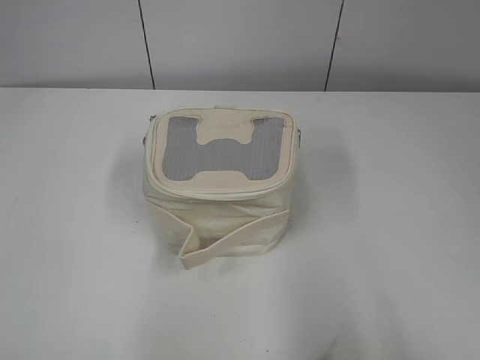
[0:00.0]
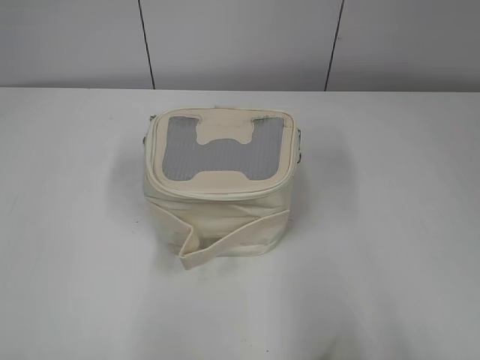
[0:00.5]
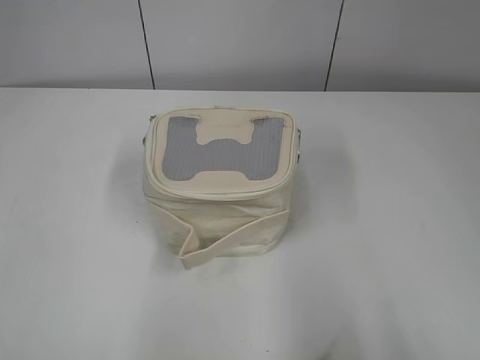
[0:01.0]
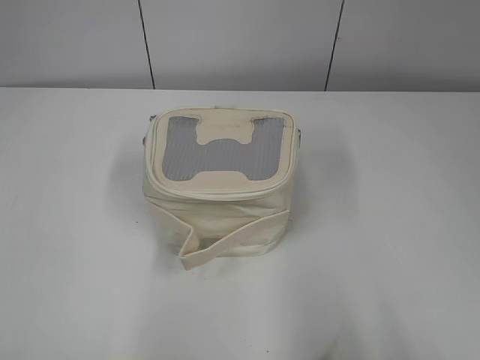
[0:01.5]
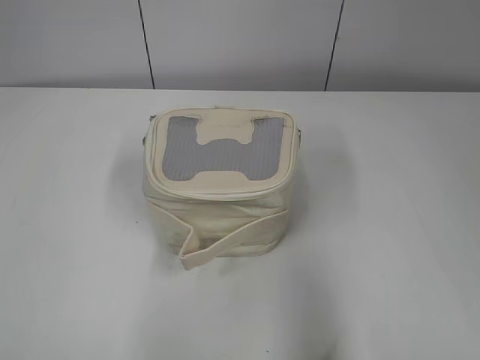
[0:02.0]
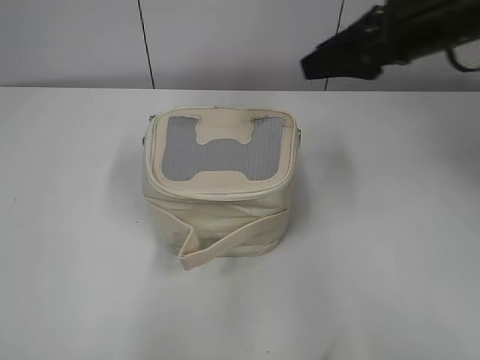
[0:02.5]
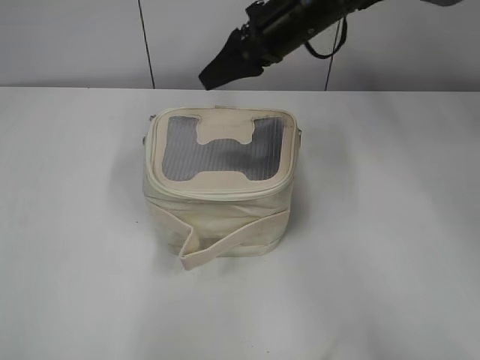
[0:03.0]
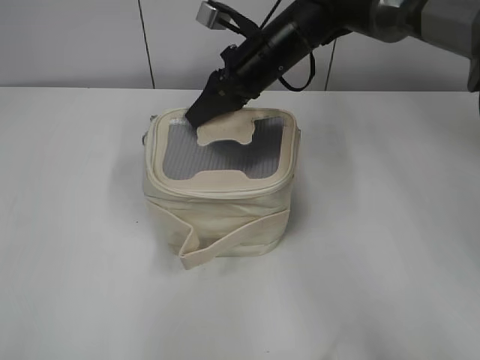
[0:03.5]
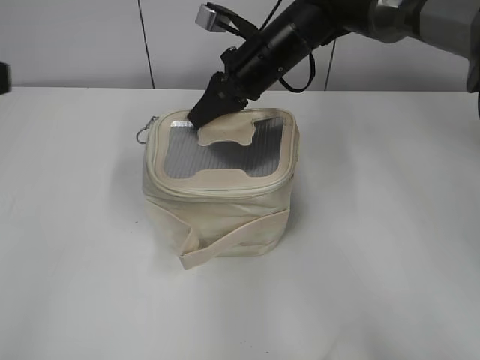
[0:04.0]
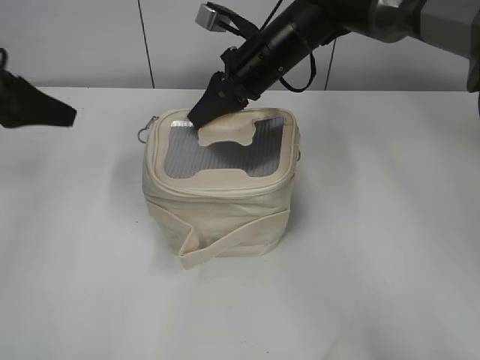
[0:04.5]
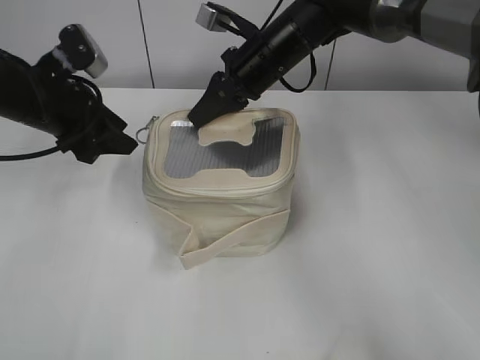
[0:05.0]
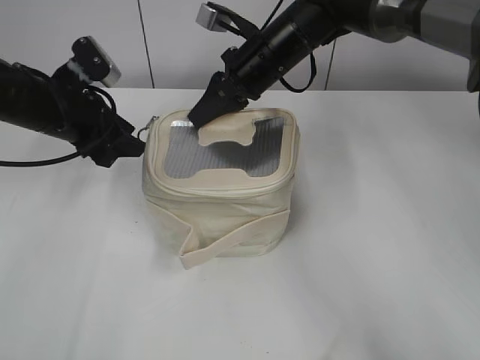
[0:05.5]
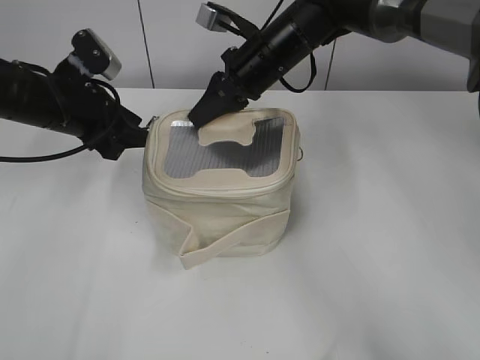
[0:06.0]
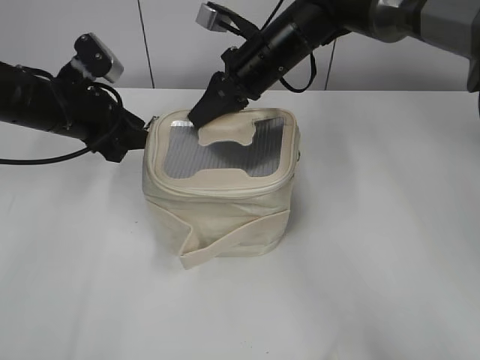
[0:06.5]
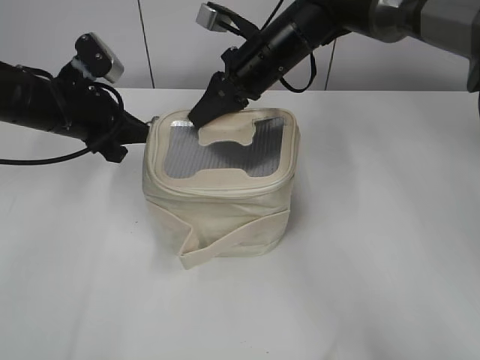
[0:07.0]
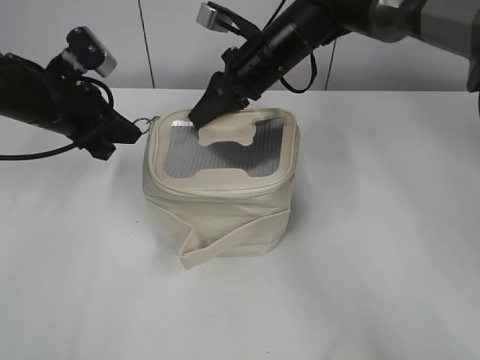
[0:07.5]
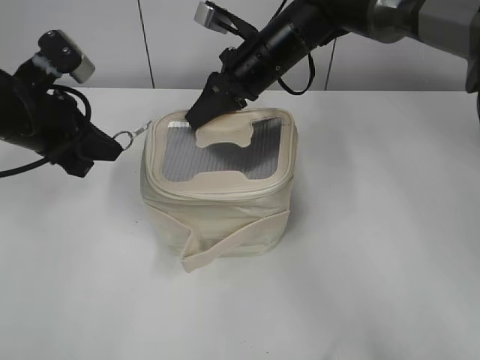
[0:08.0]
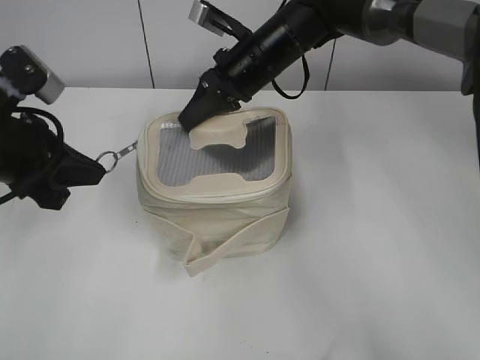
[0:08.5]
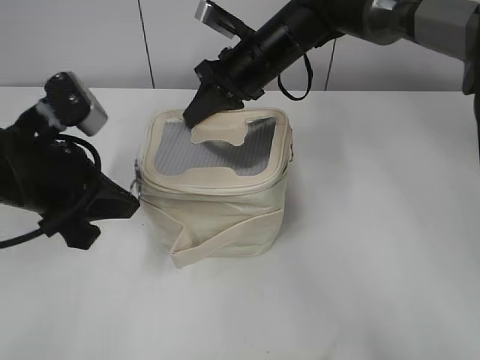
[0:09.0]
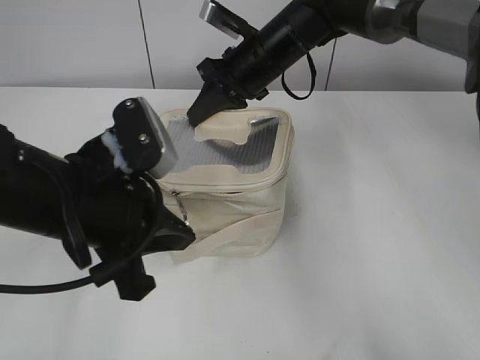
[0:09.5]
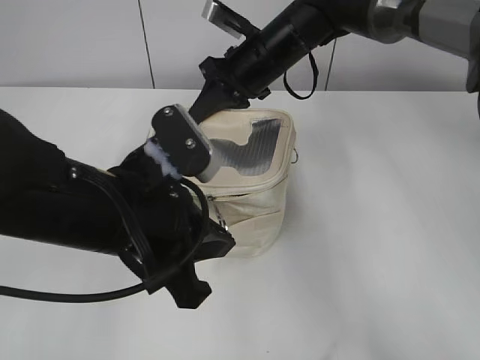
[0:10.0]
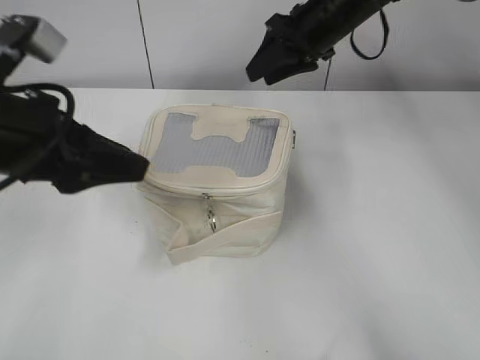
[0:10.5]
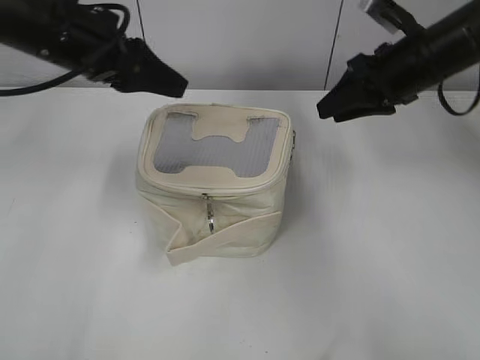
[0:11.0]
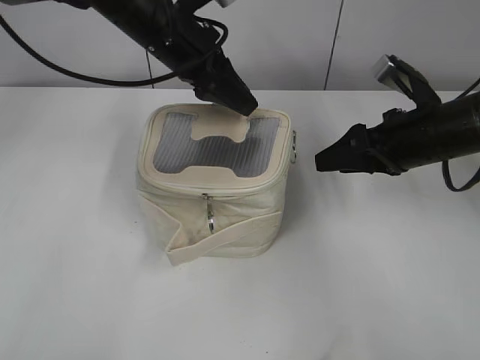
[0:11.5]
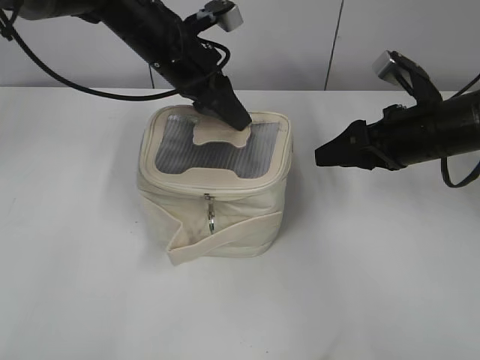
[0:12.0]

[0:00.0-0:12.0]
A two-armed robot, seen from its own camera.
Step, 0:00.0 to 0:10.0: Pull open the zipper with your left hand.
0:02.0 to 0:04.0: The left gripper goes approximately 15 cm forward. Meanwhile the right gripper travels forward and to the left by roughly 50 cm, and closes up.
0:04.0 to 0:06.0: The left gripper heads forward and downward, covering about 25 cm.
0:06.0 to 0:08.0: The left gripper shifts by some 5 cm, and closes up.
0:08.0 to 0:10.0: The left gripper goes some 20 cm backward and to the right.
0:10.0 to 0:12.0: The right gripper moves to the right and backward, approximately 20 cm, and opens. The left gripper heads forward, covering some 25 cm, and opens.

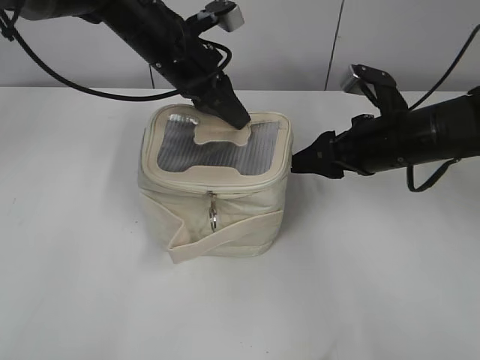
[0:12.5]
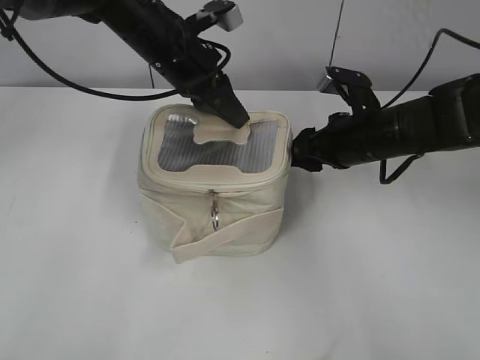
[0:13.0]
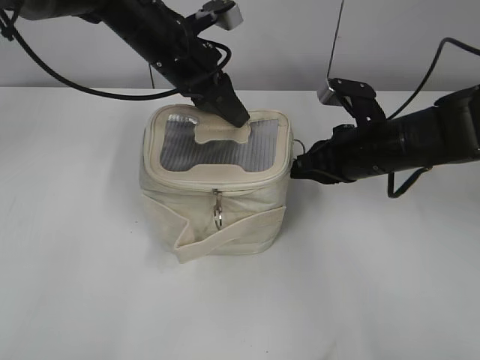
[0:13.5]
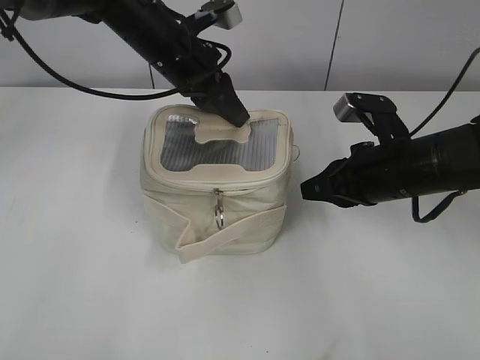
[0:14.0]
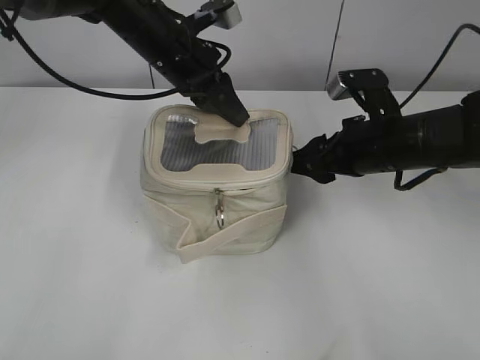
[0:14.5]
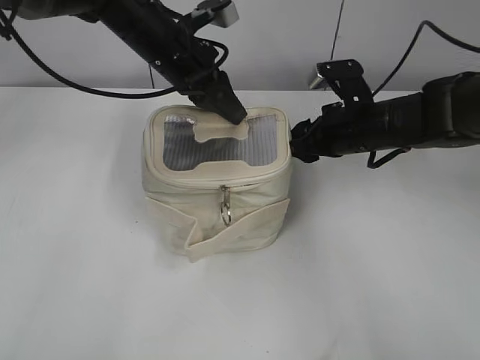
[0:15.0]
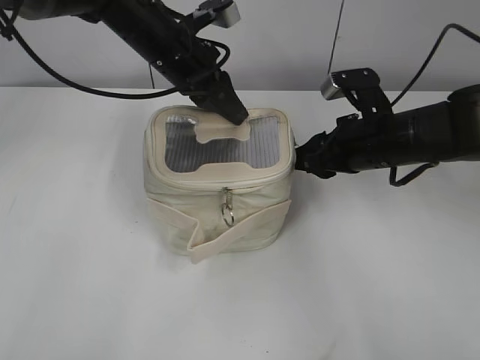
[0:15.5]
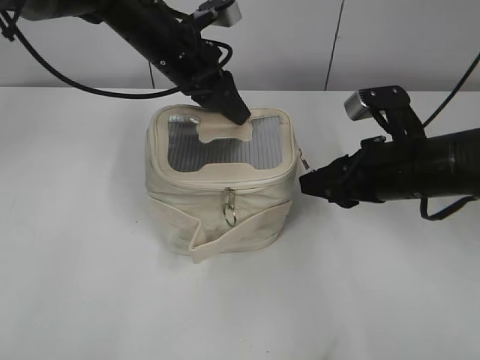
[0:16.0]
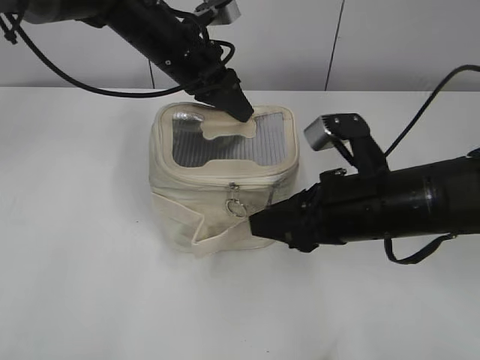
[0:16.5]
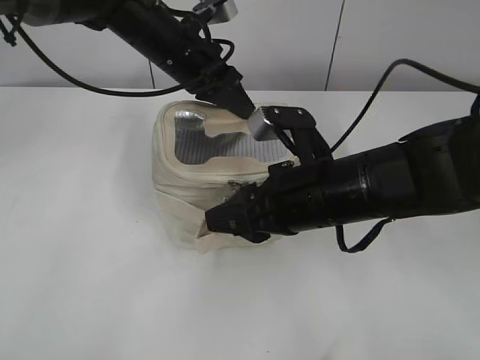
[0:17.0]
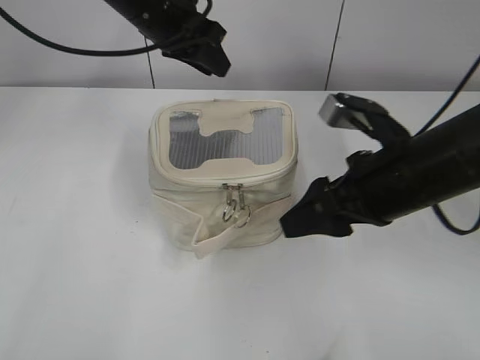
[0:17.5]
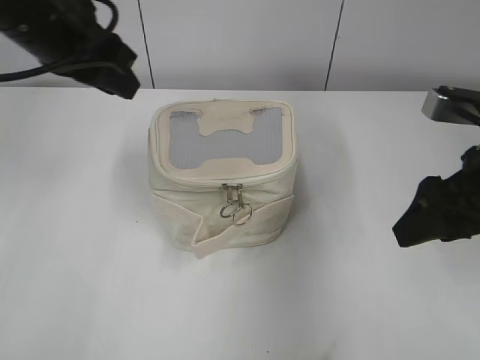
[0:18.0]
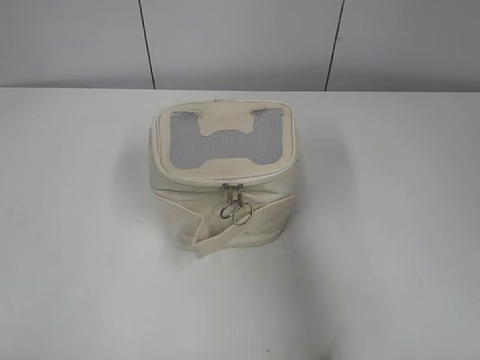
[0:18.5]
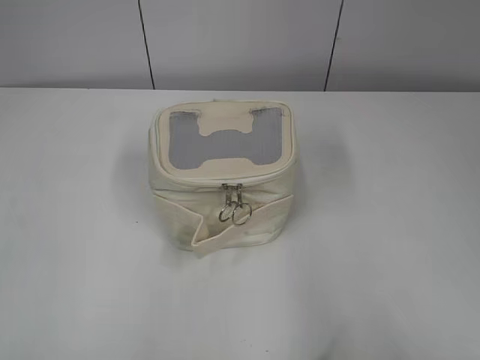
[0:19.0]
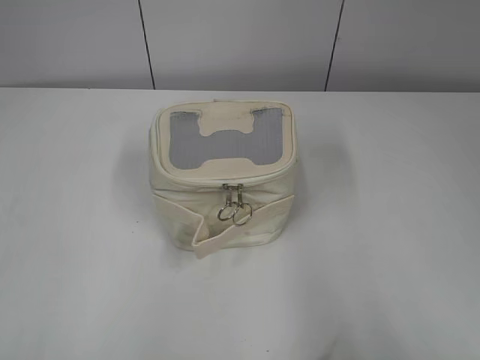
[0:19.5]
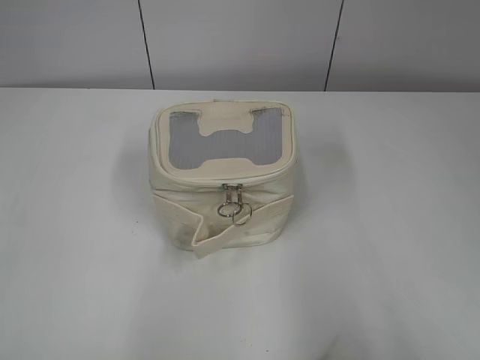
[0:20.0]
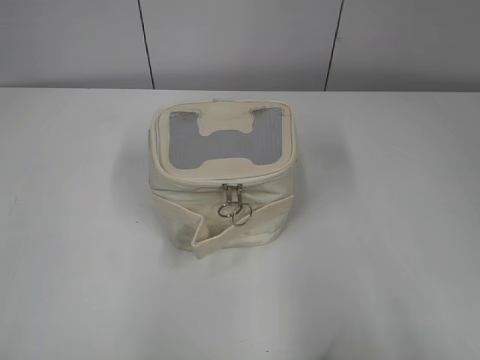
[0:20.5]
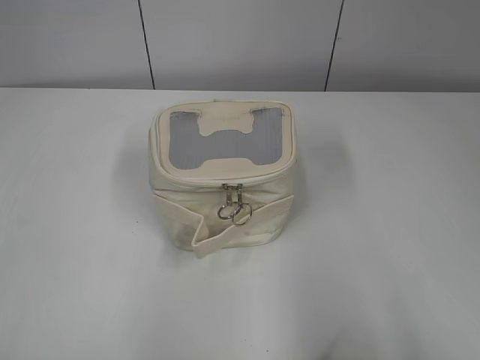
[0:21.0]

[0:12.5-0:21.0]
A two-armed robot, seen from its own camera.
Step, 0:12.5 to 0:17.0: Pull open the zipper with your right hand.
0:12.5 to 0:14.5: The right gripper closes, then opens again.
0:14.5 to 0:16.5: The right gripper is displaced backward by about 10 cm.
0:16.5 to 0:19.0: The right gripper goes approximately 30 cm backward, to the right and upward, and opens; the left gripper goes some 50 cm backward and to the left, and opens.

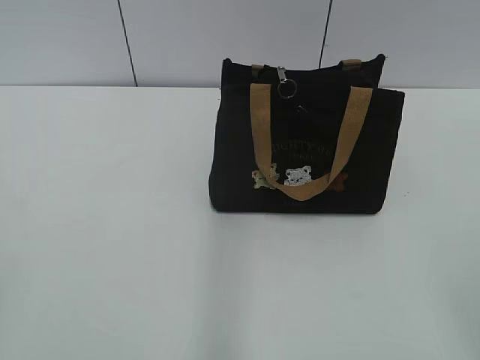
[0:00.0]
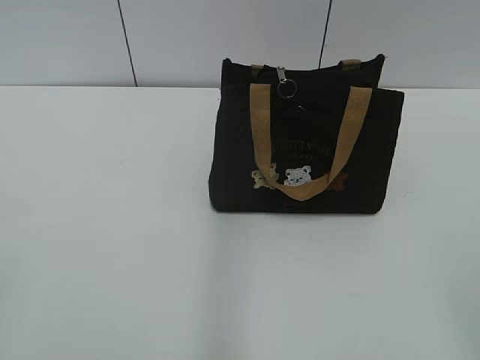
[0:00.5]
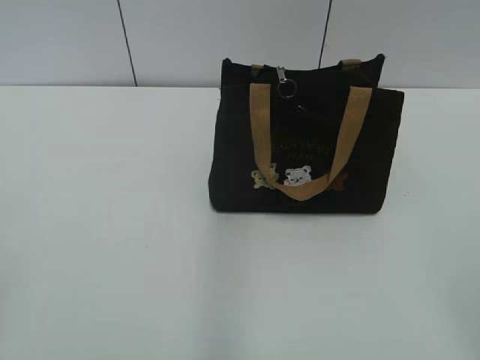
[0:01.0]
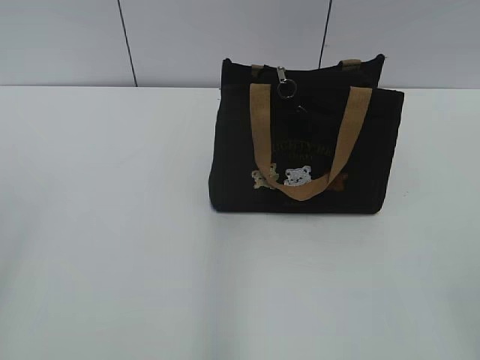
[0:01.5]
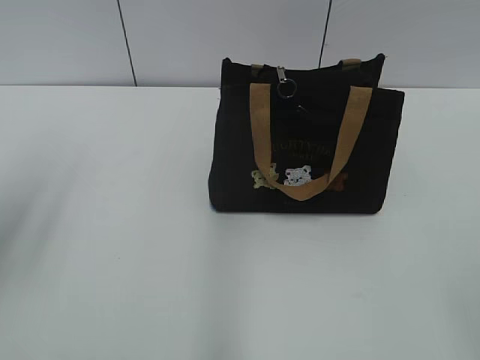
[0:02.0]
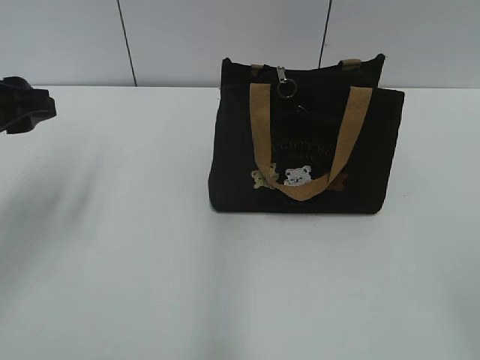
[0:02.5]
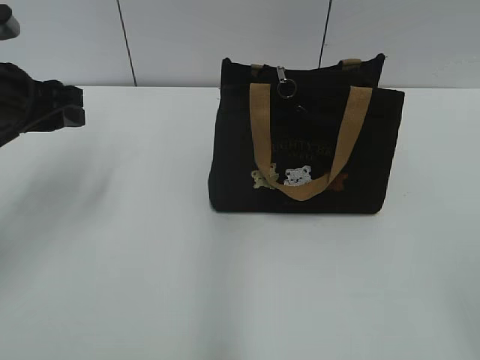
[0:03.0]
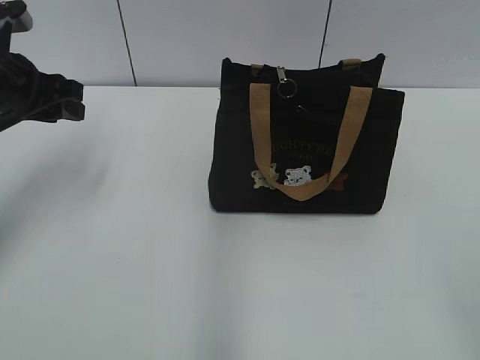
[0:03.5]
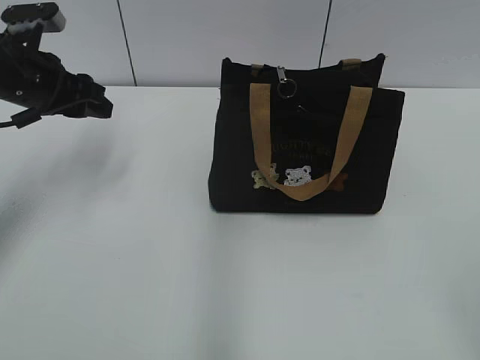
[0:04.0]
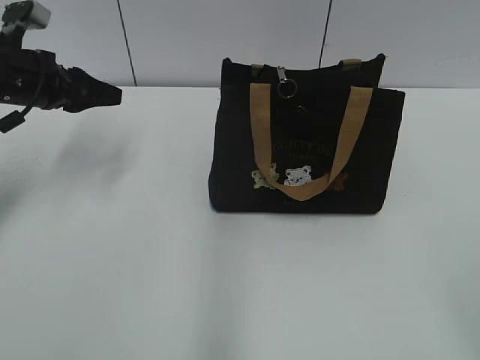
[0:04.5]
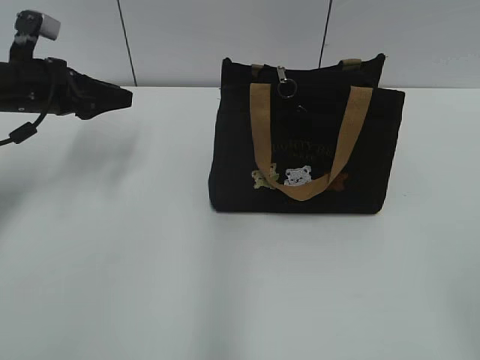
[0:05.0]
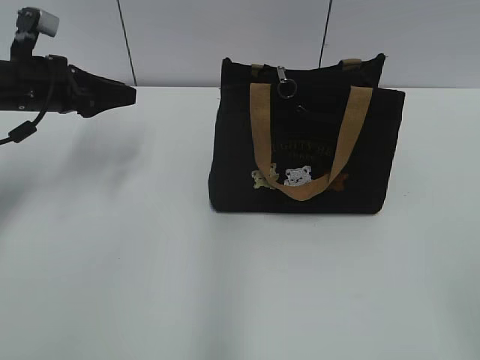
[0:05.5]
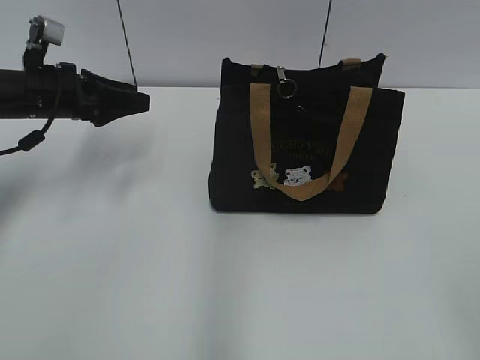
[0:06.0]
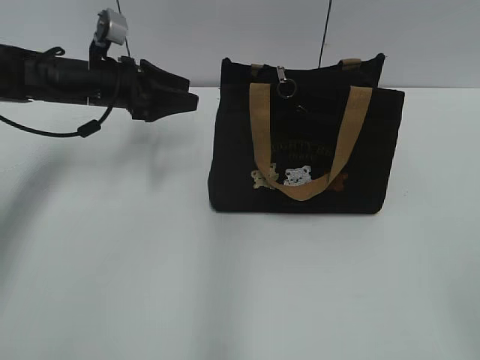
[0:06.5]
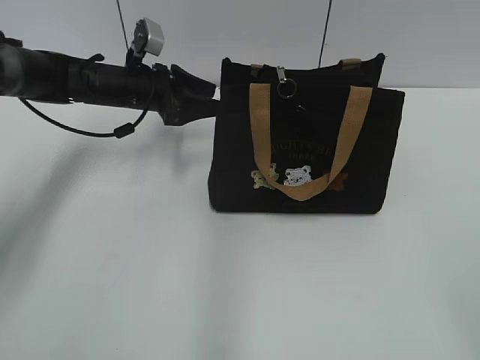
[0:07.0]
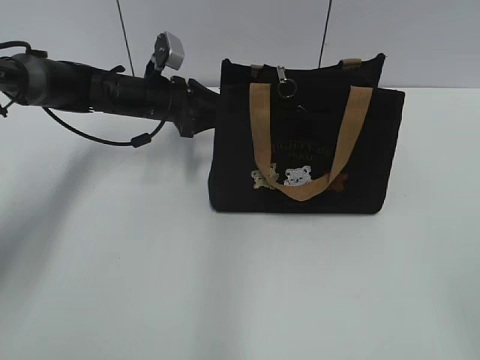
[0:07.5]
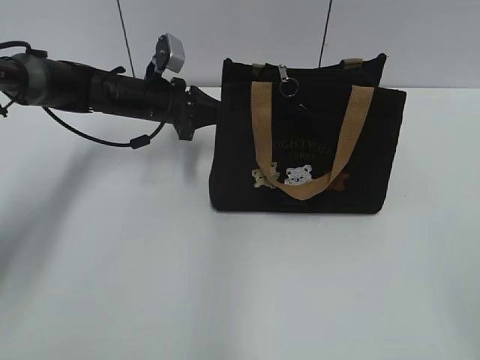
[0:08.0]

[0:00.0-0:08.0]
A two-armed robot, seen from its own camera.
0:02.0 to 0:04.0: The left gripper moves forward and downward, approximately 20 cm.
0:04.0 to 0:06.0: The left gripper moves about 5 cm.
0:06.0 to 0:08.0: The left gripper travels to the right, forward and downward by roughly 15 cm, and closes up.
